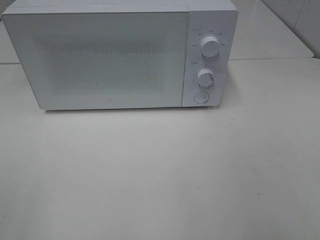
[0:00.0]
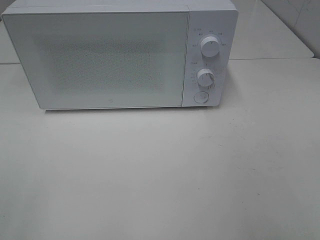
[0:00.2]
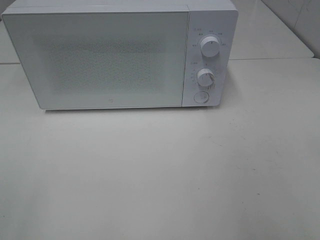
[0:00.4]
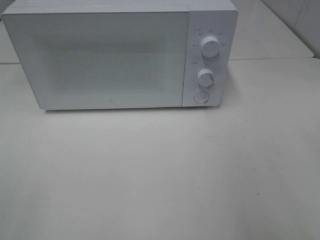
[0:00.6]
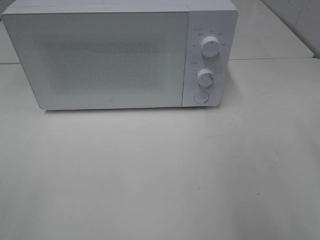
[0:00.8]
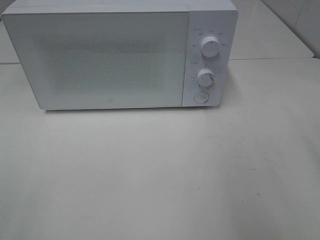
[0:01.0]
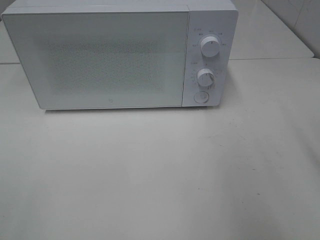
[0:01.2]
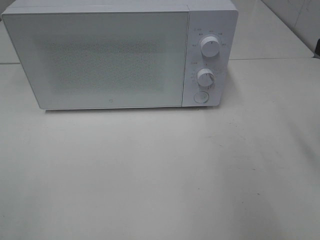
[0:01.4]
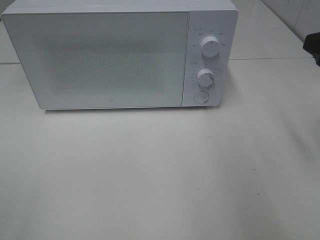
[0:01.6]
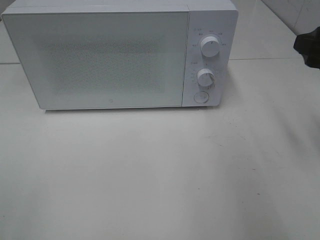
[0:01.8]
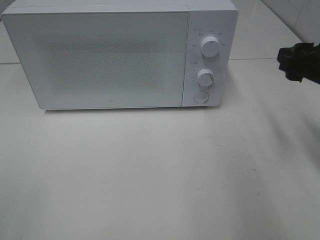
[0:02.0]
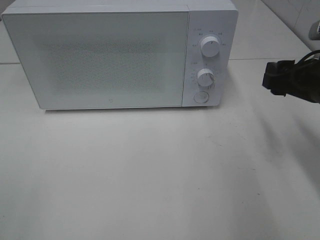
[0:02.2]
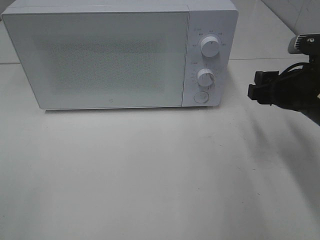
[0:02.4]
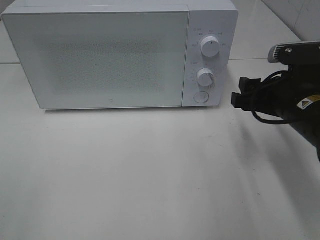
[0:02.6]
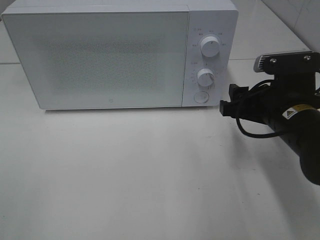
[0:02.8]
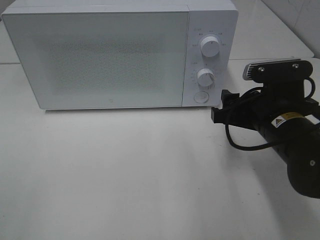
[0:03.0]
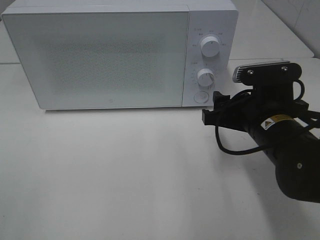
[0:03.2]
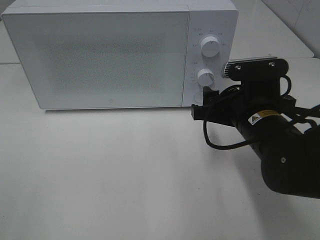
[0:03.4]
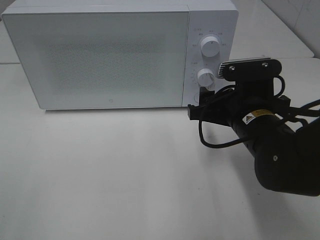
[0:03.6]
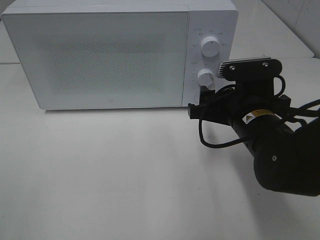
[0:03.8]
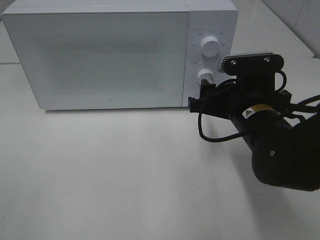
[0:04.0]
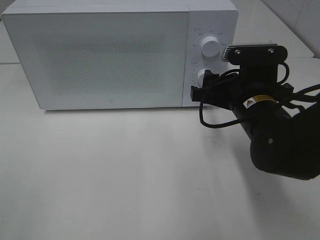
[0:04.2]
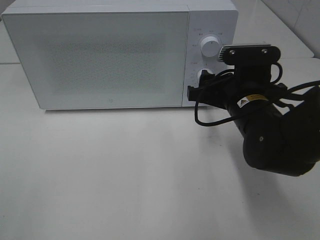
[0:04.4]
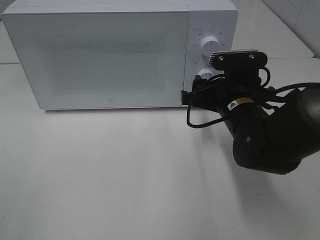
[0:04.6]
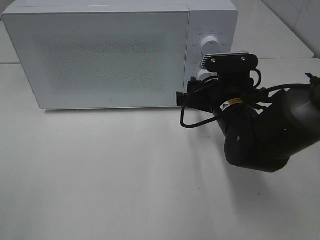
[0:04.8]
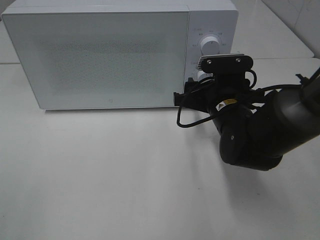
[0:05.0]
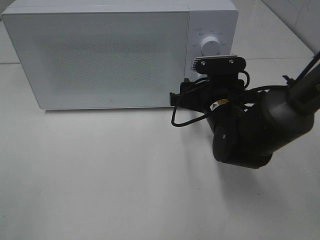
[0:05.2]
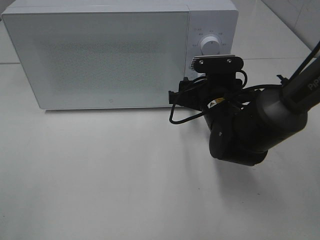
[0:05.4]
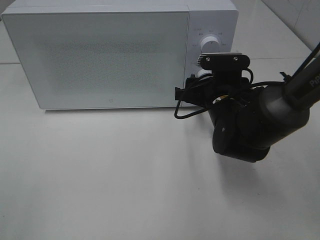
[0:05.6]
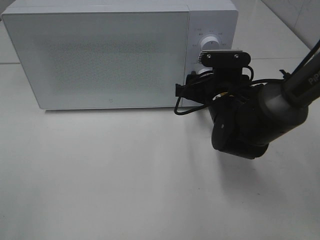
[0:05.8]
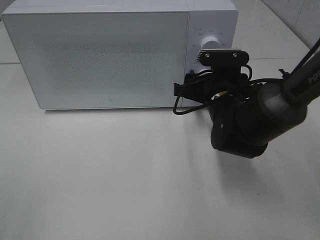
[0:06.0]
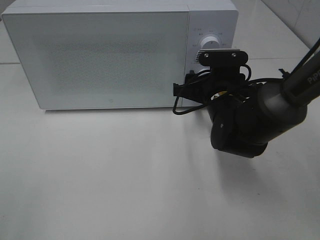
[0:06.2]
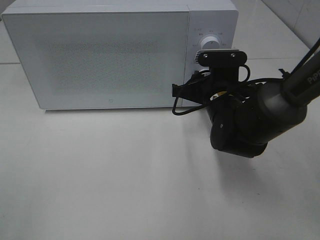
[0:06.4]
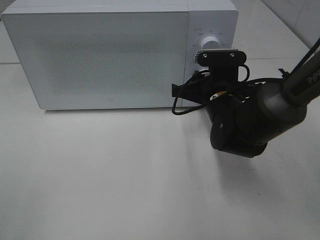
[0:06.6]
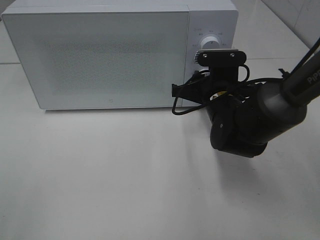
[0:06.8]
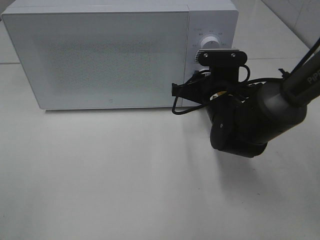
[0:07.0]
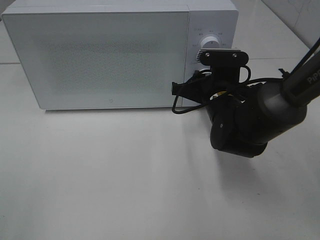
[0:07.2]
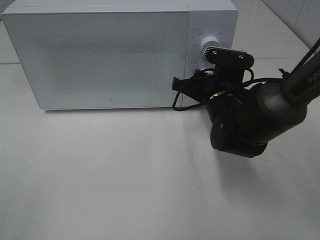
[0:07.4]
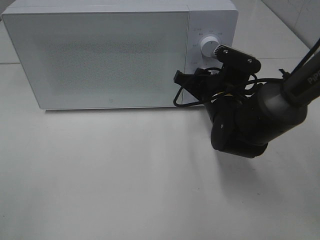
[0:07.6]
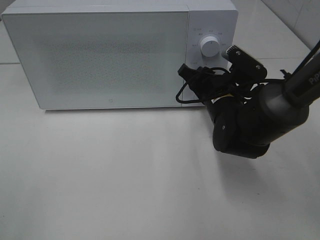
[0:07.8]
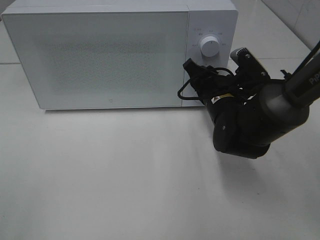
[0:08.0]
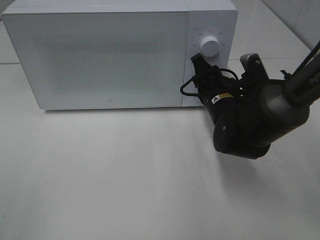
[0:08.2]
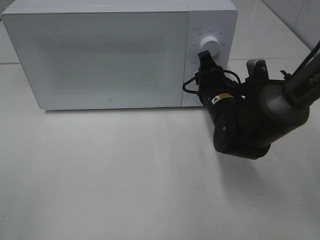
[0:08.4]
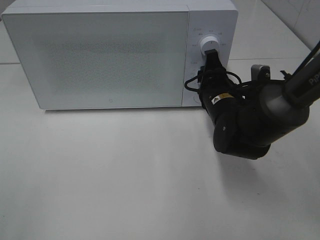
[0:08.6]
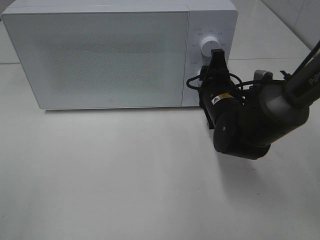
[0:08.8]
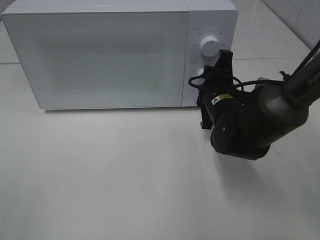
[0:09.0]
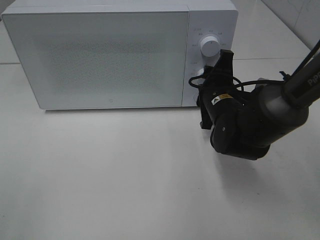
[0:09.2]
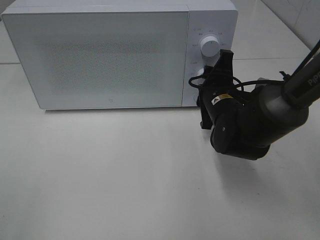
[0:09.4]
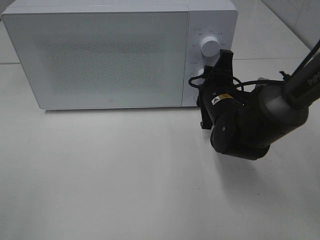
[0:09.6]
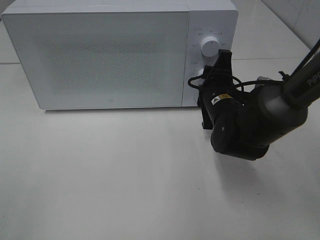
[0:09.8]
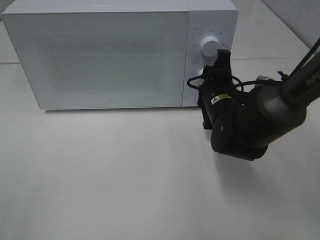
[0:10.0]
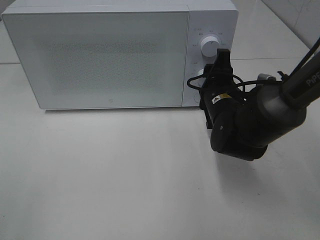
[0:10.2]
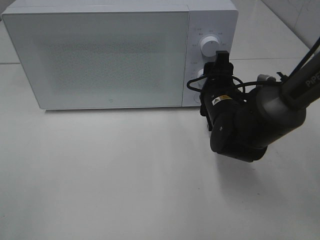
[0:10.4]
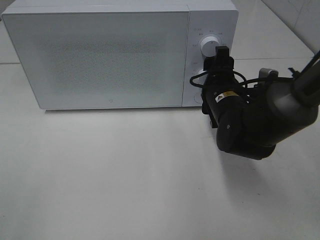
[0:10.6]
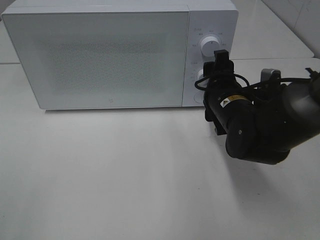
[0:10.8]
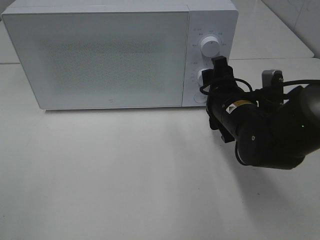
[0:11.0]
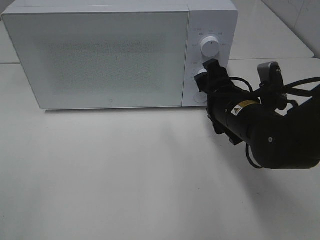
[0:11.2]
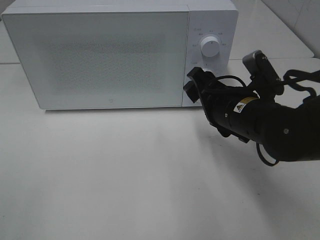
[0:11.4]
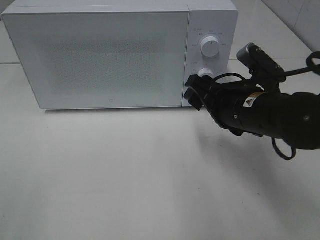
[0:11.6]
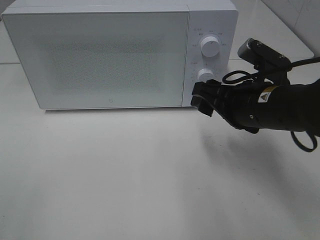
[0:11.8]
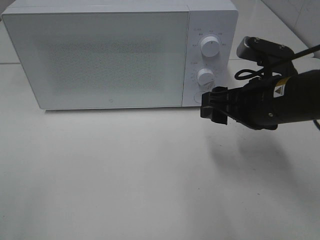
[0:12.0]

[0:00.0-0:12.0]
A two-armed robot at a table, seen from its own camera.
Task of the whole recording: Heat Sandwich.
Step, 0:00.0 to 0:10.8: Right hand: twist timer button.
0:00.0 to 0:01.6: The right gripper is displaced forward by some 20 cm.
0:01.6 to 0:03.0: The right gripper goes approximately 15 cm downward and to the left.
0:03.0 to 0:04.4: The right gripper moves roughly 5 cm.
0:04.4 to 0:06.0: The right gripper shifts roughly 5 cm forward.
0:06.0 to 0:07.6: The right gripper closes up.
0:09.0 to 0:10.4: The grippers move only a little.
0:10.4 to 0:12.0: The right gripper shifts roughly 10 cm upward and backward.

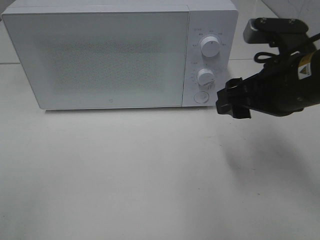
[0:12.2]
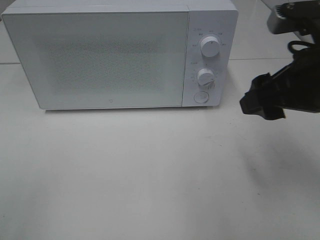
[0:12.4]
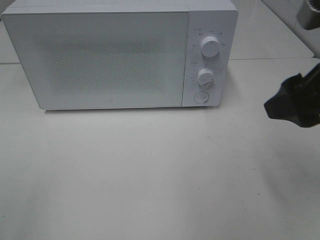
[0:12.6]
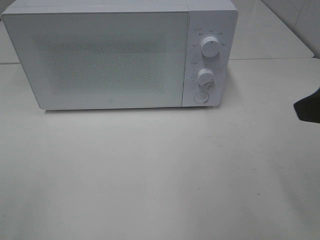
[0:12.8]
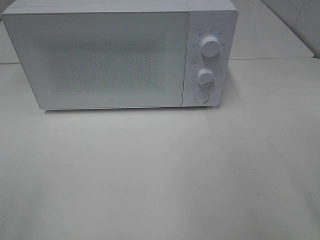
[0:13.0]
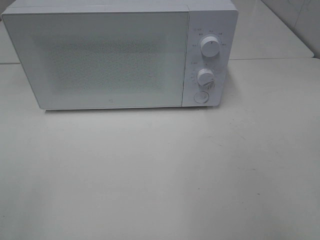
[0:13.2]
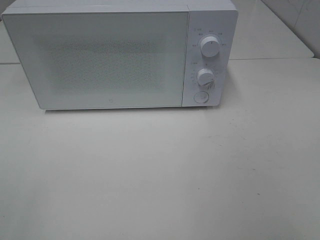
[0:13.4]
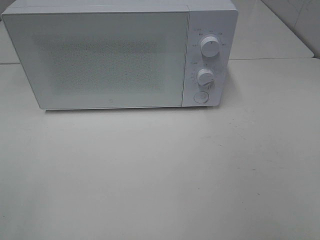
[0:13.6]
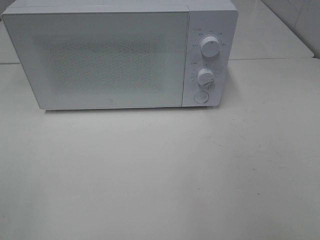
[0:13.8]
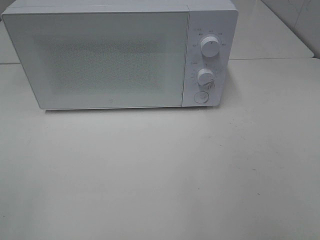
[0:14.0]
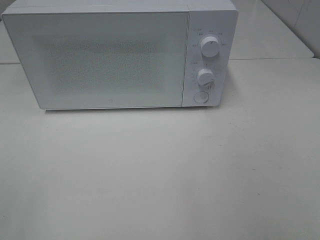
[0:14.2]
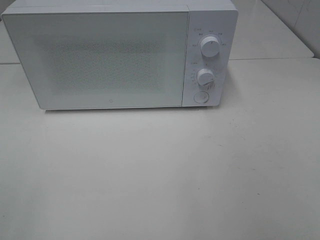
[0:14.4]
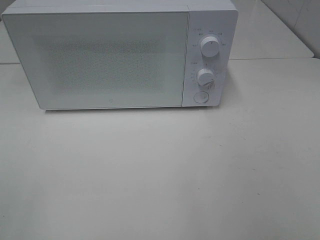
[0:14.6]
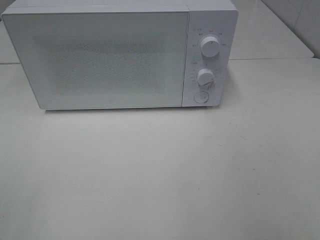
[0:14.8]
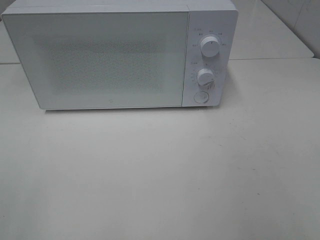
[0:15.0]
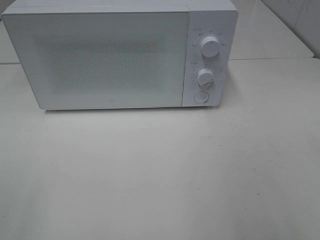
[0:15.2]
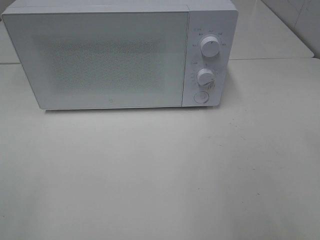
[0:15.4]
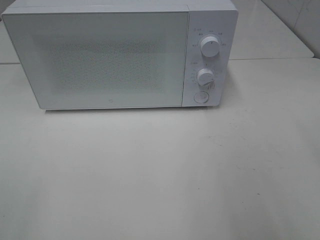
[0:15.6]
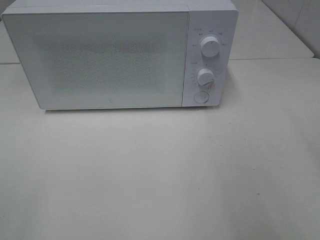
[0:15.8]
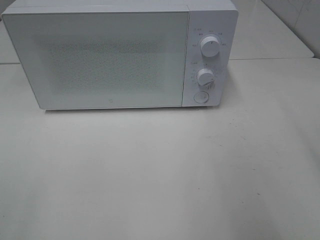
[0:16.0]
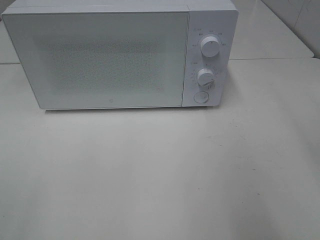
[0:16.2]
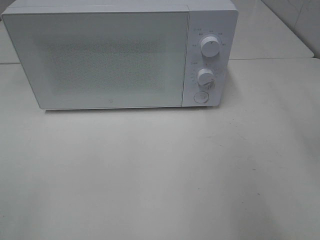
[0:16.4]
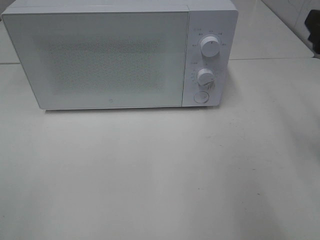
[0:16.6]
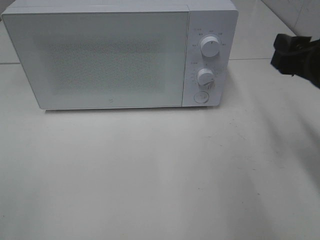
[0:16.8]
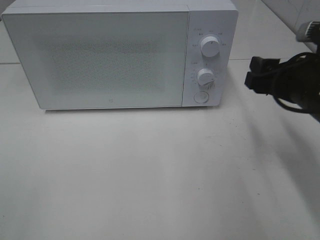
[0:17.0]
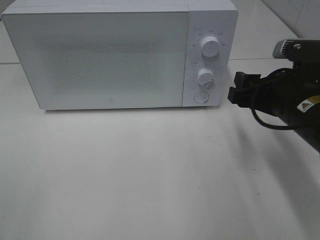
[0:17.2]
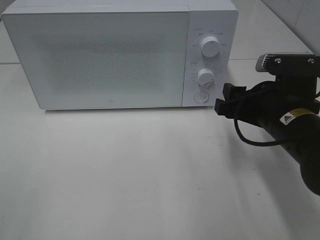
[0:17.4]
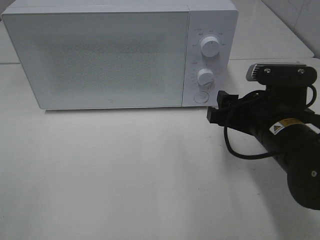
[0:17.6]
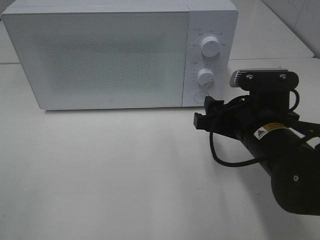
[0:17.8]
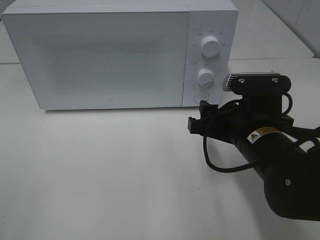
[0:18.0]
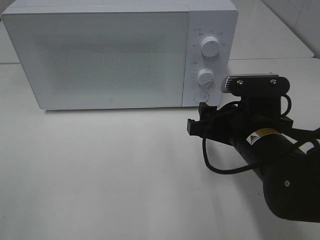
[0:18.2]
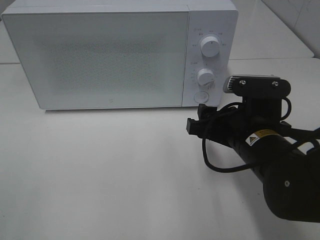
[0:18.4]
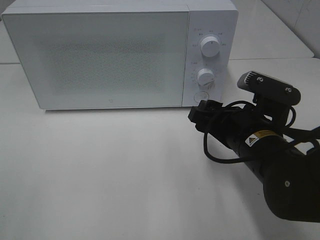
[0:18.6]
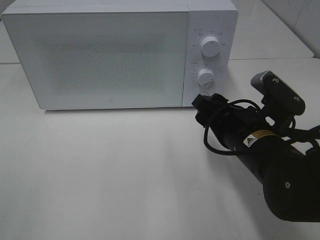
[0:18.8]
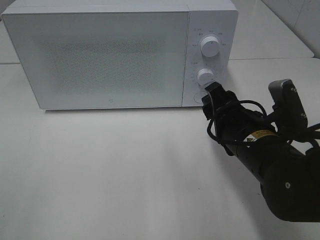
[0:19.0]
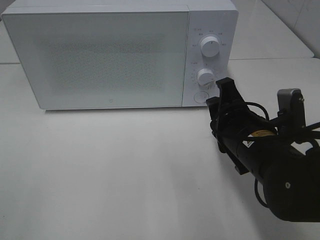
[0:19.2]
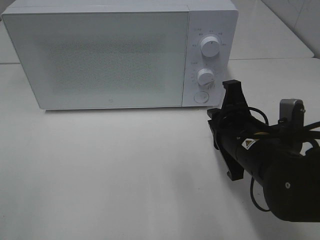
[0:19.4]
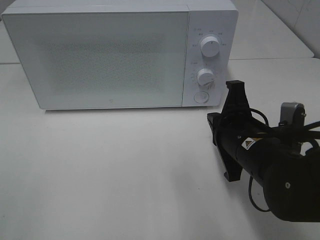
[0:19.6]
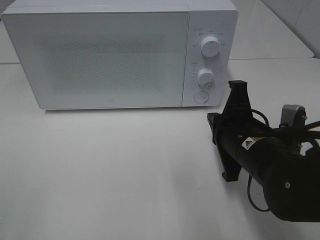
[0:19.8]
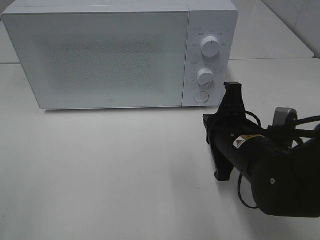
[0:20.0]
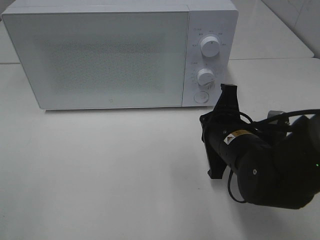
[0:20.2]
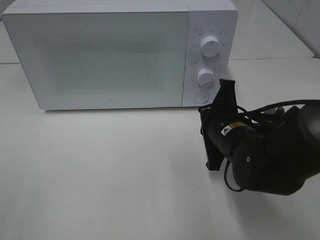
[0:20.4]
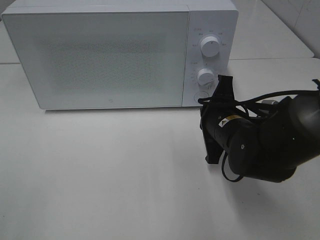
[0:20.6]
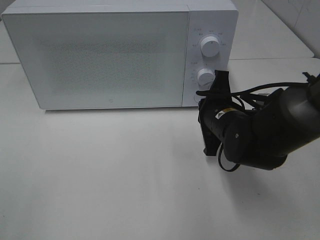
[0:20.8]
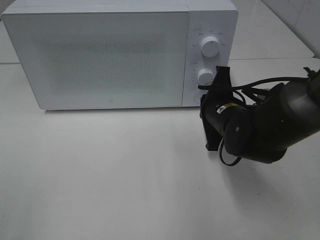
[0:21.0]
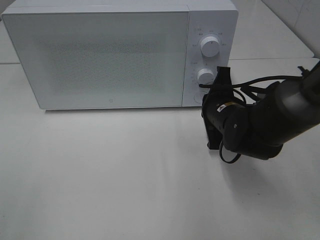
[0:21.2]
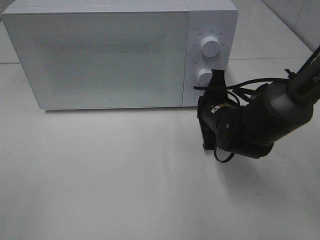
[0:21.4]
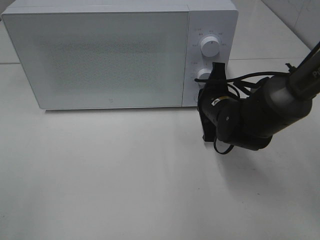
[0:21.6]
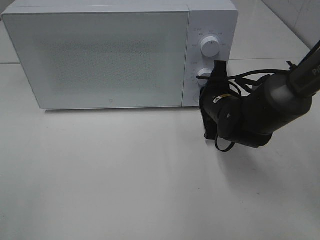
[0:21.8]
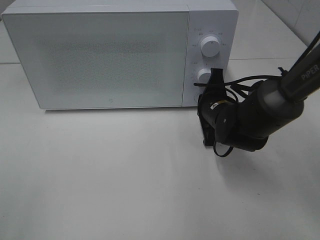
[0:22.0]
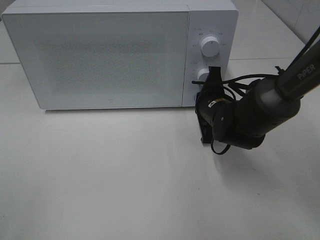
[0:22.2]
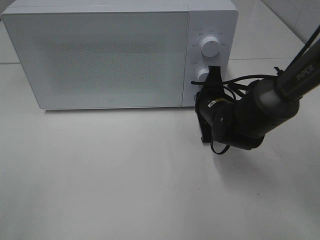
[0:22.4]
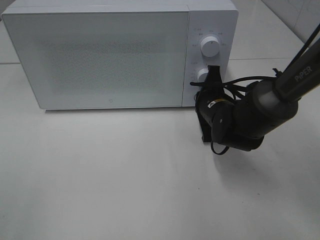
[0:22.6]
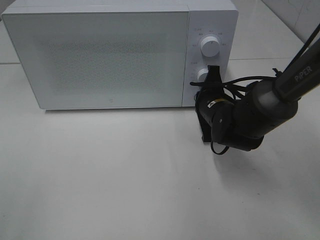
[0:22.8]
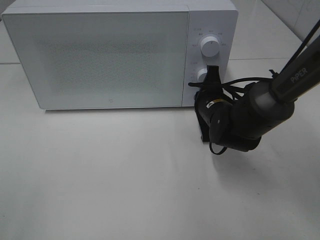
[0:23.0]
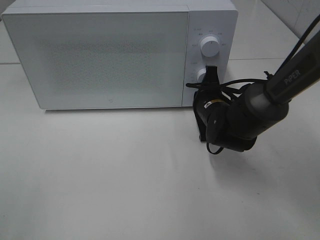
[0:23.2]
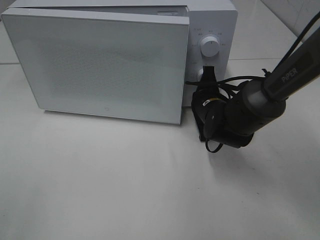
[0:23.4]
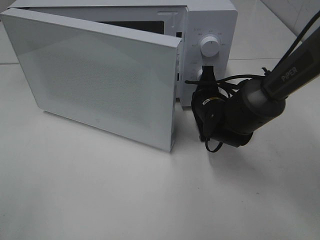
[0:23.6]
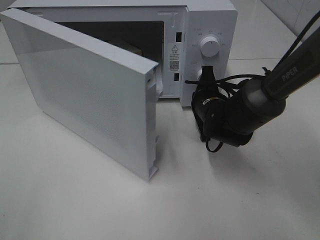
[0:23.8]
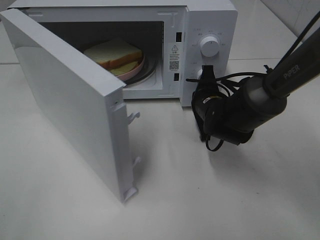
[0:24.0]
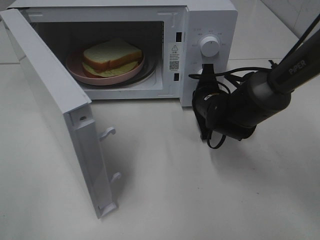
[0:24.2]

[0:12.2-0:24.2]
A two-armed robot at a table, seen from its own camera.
Task of the whole recording: Heat Sandwich.
0:12.2 to 0:13.8: The right gripper heads backward and to the right, covering roughly 25 cm.
0:15.2 to 0:16.6: The right gripper heads forward, covering some 20 cm.
0:16.6 to 0:18.2: The right gripper goes roughly 15 cm to the left and downward.
0:18.2 to 0:19.8: The right gripper closes.
0:19.8 to 0:21.2: The right gripper is displaced forward by about 10 cm.
0:21.2 to 0:22.6: The grippers stay close to where they were, moving slightly.
